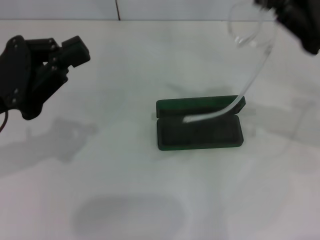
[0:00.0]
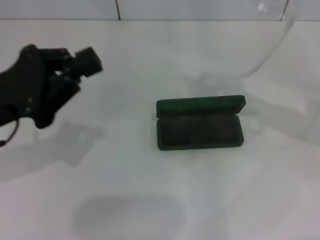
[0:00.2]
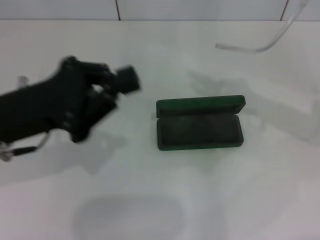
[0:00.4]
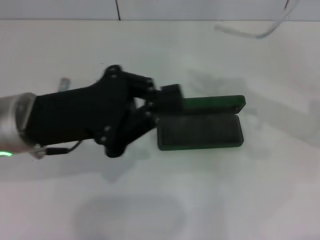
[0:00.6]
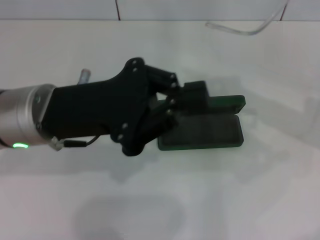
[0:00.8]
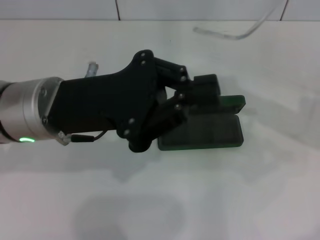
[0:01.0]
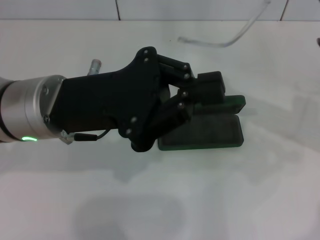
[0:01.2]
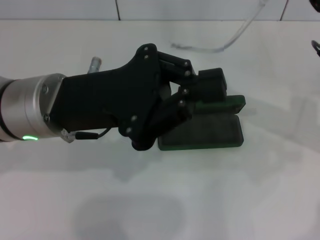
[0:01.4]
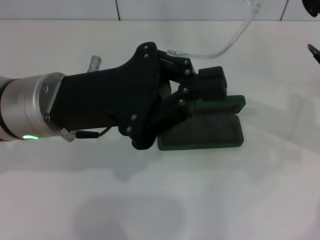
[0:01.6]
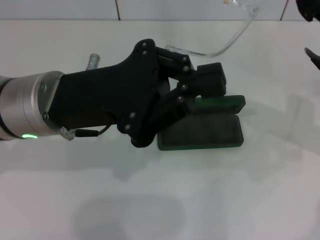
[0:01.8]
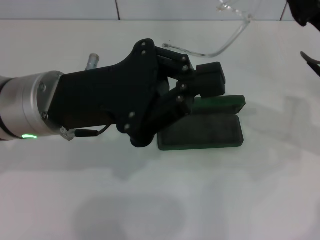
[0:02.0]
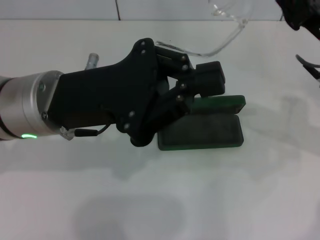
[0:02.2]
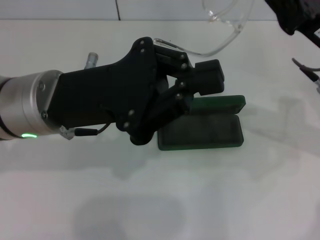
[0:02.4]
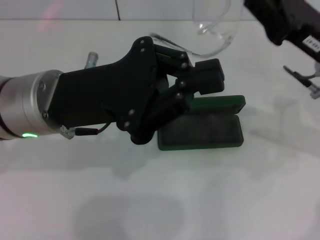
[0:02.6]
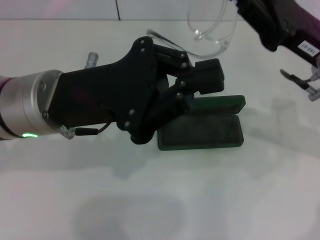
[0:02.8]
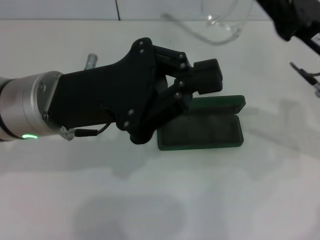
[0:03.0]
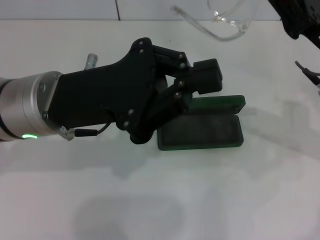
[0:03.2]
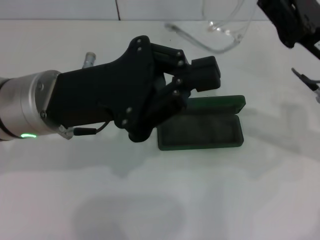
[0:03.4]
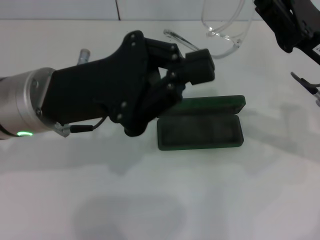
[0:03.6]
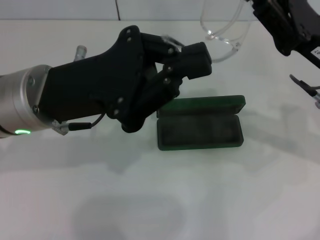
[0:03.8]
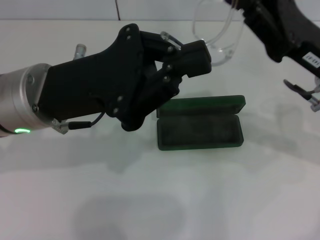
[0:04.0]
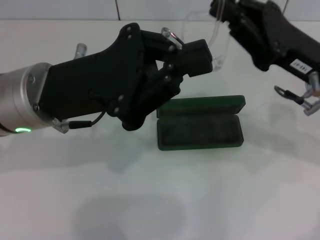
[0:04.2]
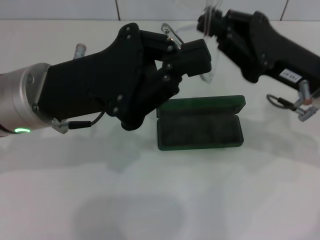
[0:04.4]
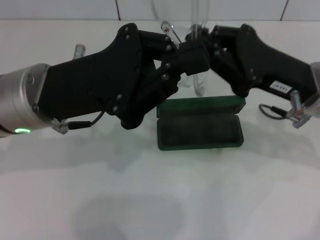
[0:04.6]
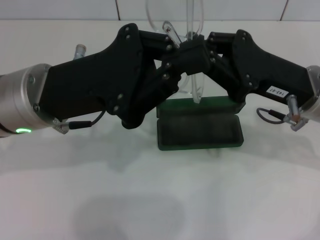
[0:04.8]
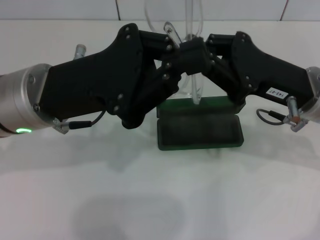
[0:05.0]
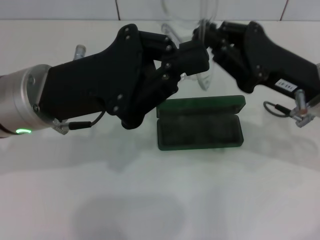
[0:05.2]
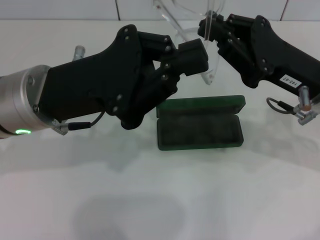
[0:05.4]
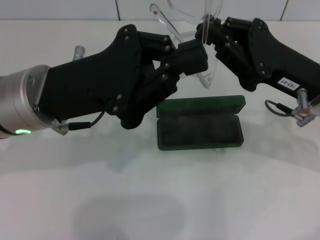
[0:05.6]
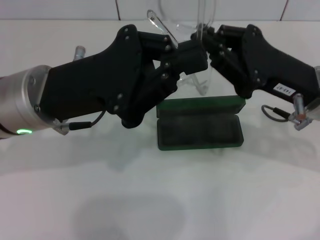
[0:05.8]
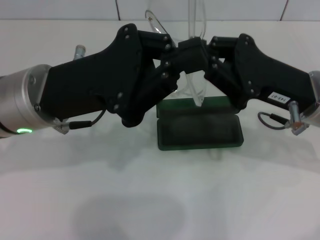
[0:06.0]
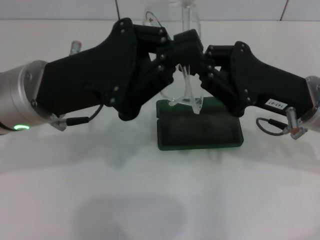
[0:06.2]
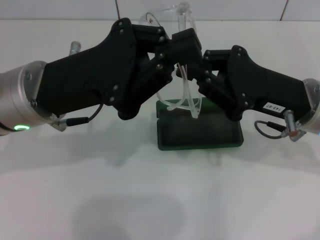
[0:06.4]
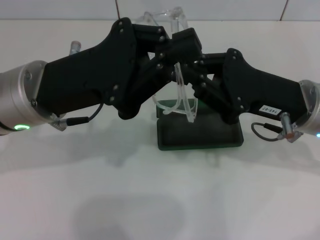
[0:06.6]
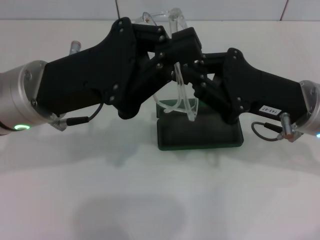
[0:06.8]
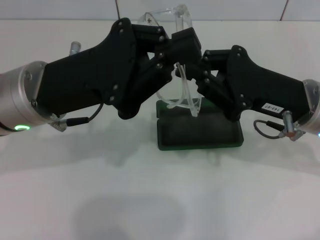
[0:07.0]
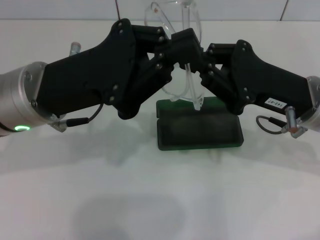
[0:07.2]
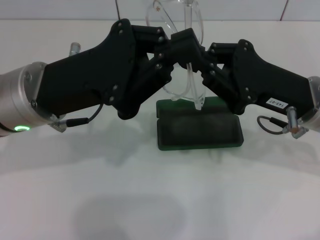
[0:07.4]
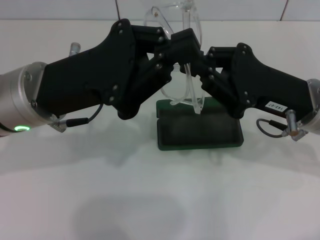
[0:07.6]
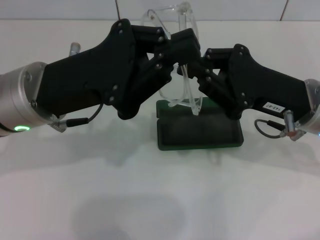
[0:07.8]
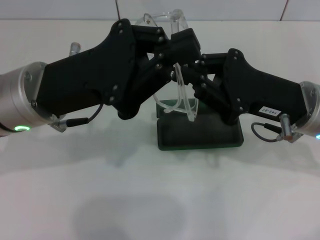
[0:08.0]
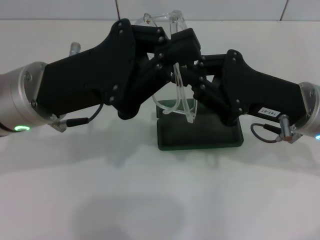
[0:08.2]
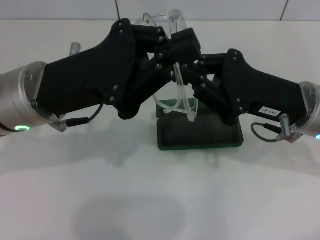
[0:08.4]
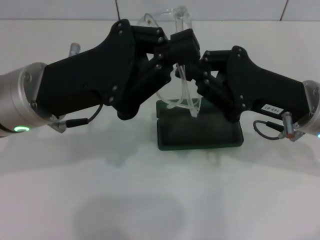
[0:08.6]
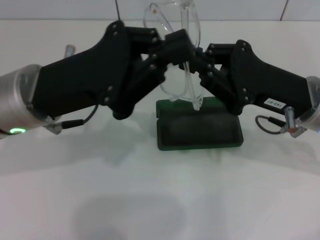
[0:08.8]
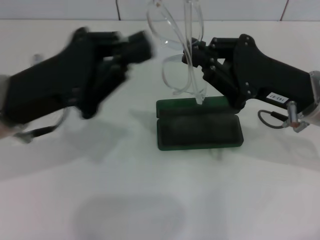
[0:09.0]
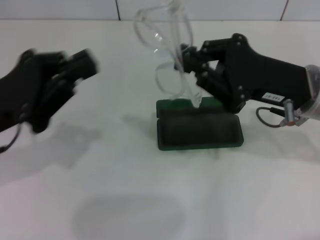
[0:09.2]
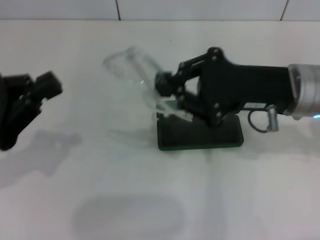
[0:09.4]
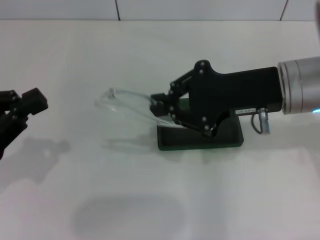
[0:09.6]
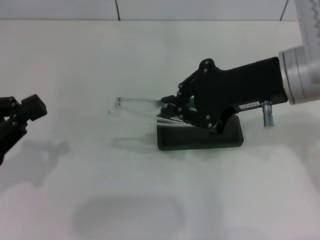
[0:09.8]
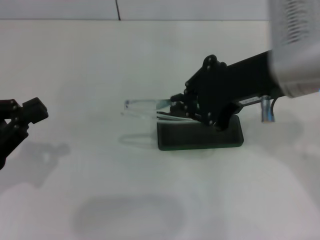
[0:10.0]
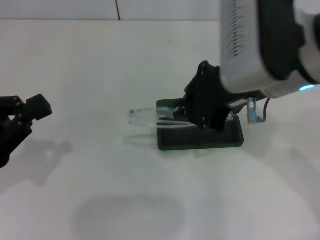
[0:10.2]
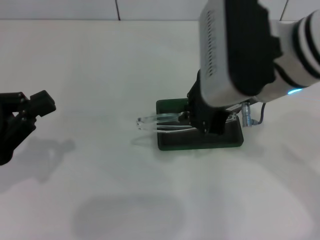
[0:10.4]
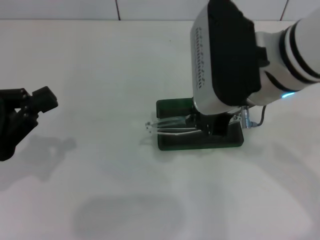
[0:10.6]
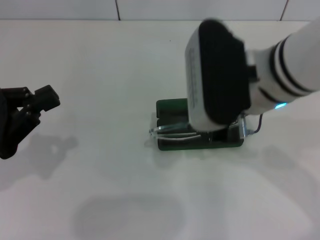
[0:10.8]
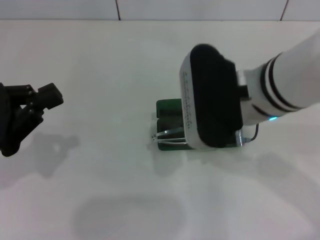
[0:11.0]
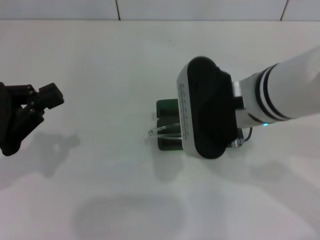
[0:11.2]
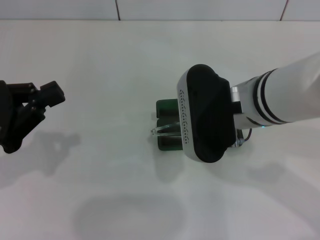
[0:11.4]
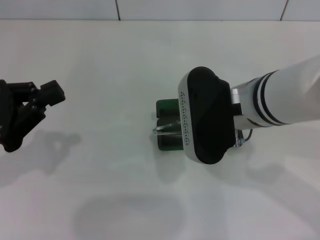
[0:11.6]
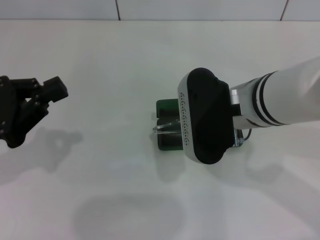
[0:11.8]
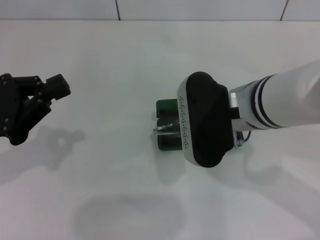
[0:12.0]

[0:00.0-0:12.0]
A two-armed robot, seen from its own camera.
Step, 0:00.0 to 0:08.6: Fold the frame with your left hand.
0:00.0 to 0:01.6: The left gripper goes approximately 10 cm to the right.
0:01.6 to 0:03.0: The grippers stay close to where they were, moving slightly.
0:04.4 to 0:06.0: The grippers stay close to where they were, moving slightly.
0:06.0 to 0:07.6: The two grippers keep their place.
0:07.6 to 0:09.0: The grippers stay close to where they were, moving slightly.
0:09.0 to 0:10.4: The right gripper shifts about 15 cm upward and to the left. The left gripper is displaced to the left by some 10 cm.
0:10.4 to 0:12.0: The right gripper is displaced downward by approximately 10 cm.

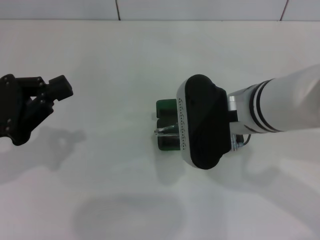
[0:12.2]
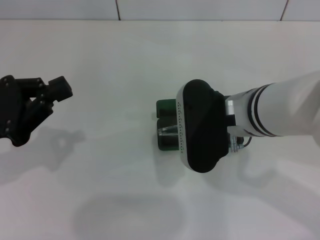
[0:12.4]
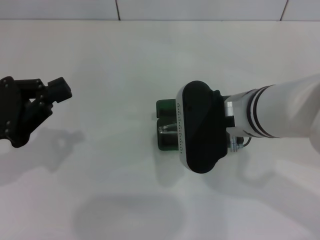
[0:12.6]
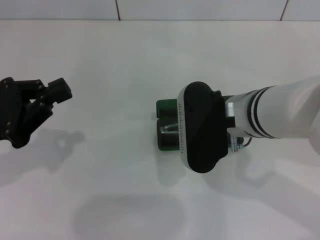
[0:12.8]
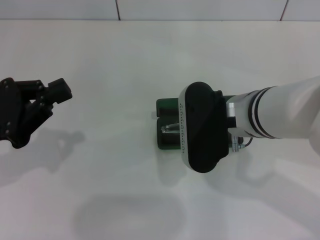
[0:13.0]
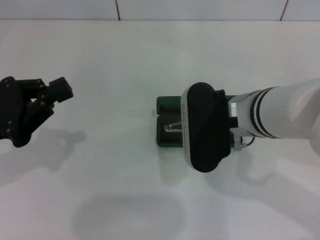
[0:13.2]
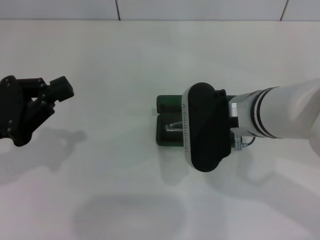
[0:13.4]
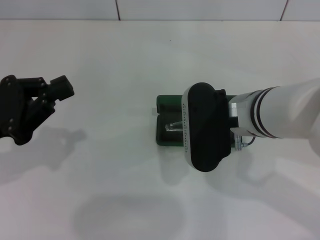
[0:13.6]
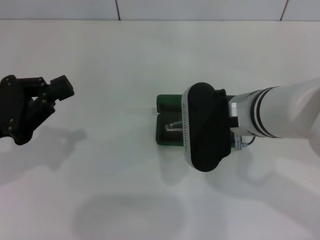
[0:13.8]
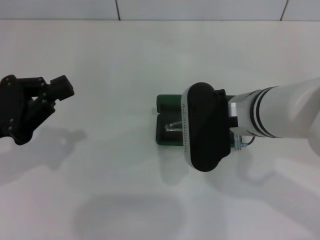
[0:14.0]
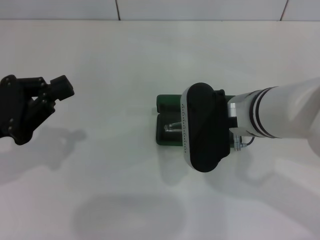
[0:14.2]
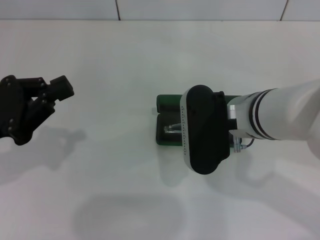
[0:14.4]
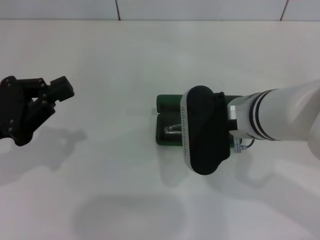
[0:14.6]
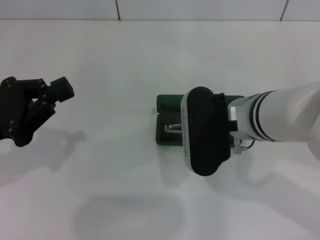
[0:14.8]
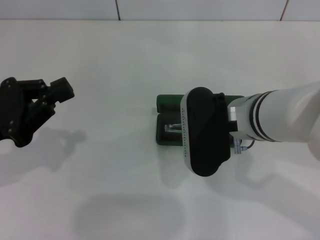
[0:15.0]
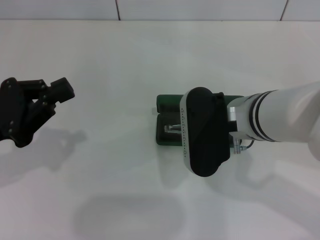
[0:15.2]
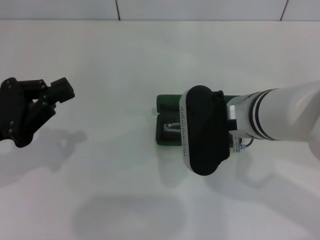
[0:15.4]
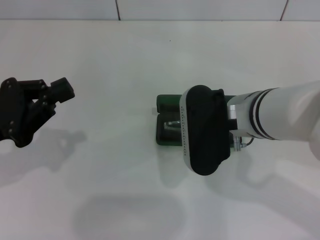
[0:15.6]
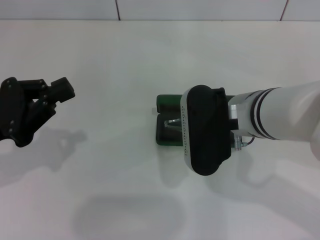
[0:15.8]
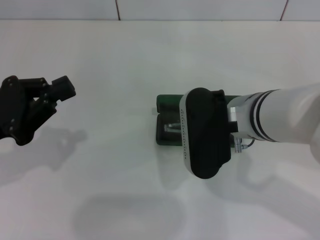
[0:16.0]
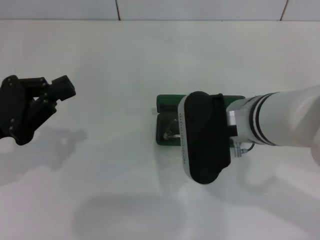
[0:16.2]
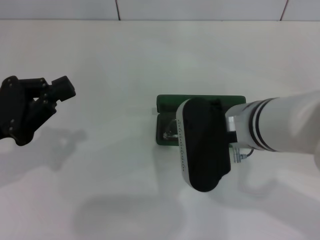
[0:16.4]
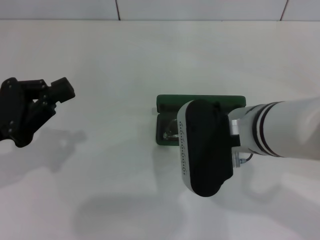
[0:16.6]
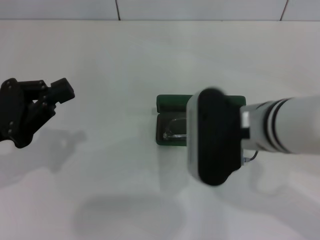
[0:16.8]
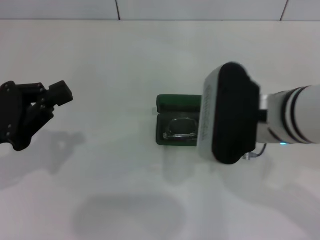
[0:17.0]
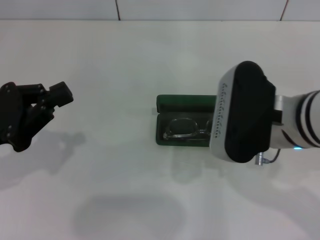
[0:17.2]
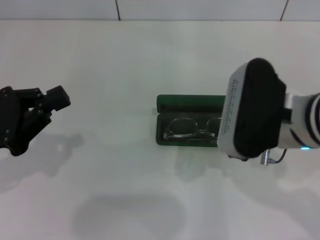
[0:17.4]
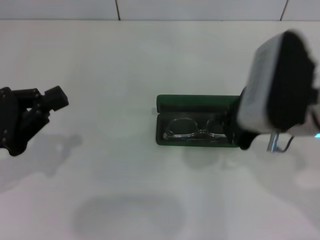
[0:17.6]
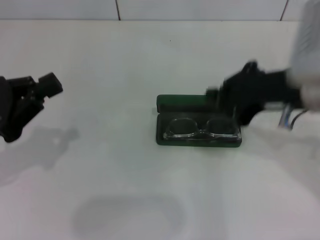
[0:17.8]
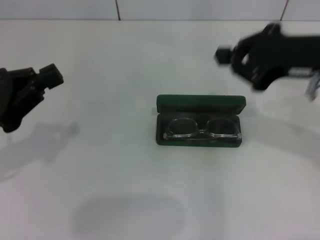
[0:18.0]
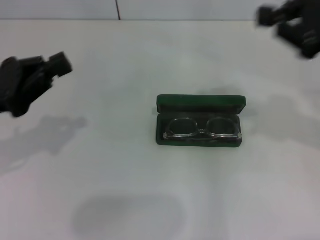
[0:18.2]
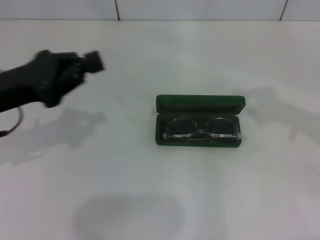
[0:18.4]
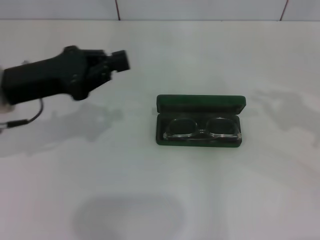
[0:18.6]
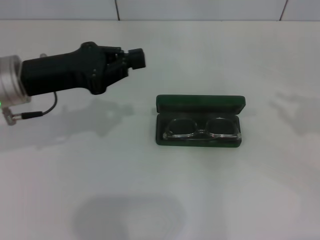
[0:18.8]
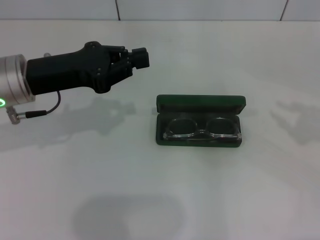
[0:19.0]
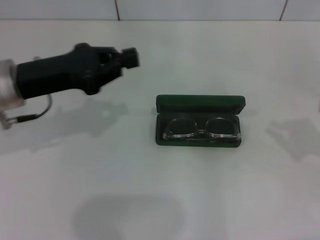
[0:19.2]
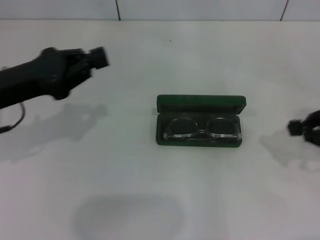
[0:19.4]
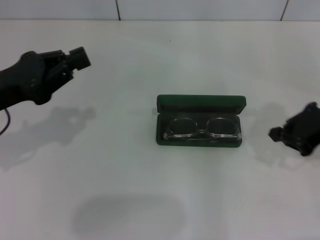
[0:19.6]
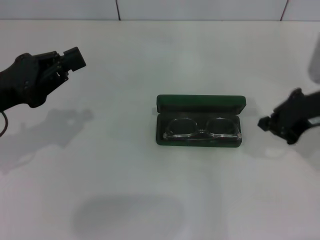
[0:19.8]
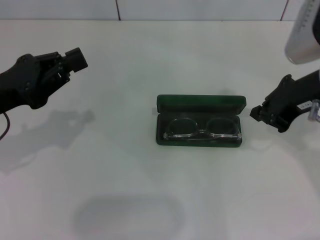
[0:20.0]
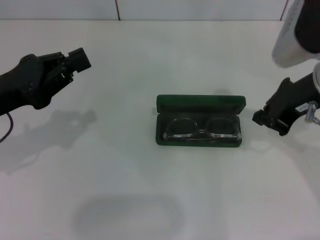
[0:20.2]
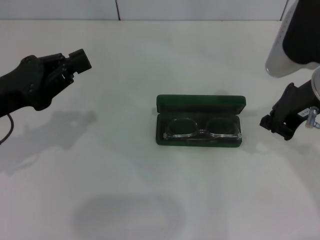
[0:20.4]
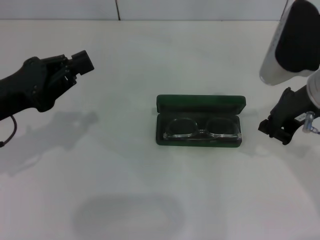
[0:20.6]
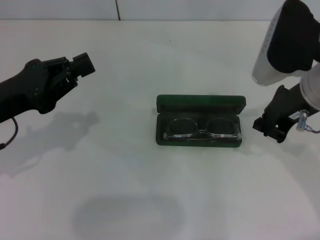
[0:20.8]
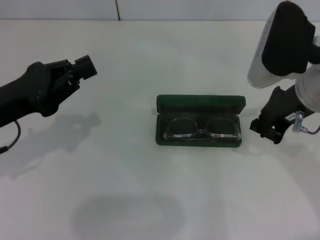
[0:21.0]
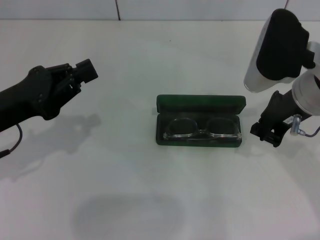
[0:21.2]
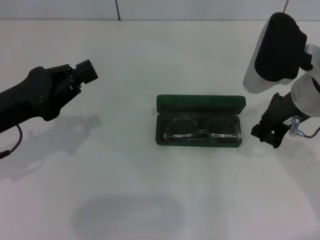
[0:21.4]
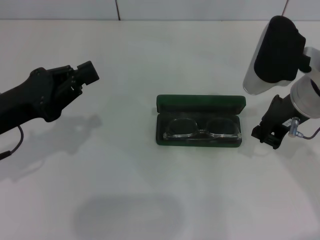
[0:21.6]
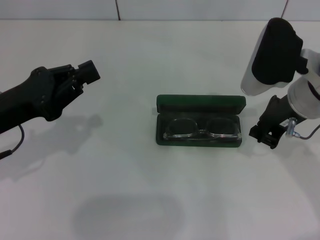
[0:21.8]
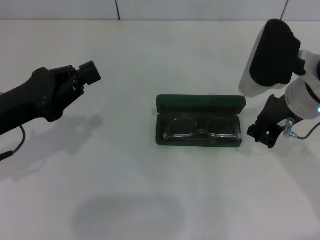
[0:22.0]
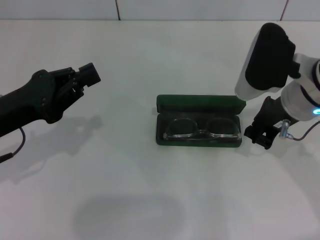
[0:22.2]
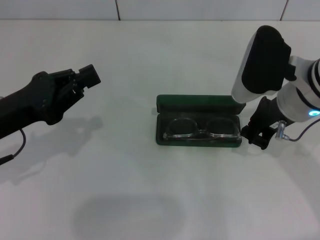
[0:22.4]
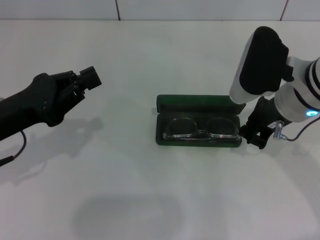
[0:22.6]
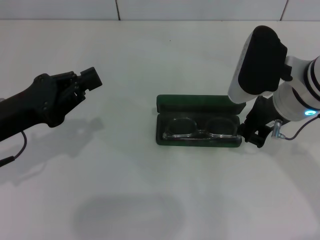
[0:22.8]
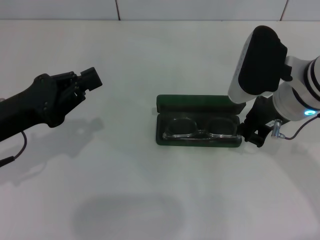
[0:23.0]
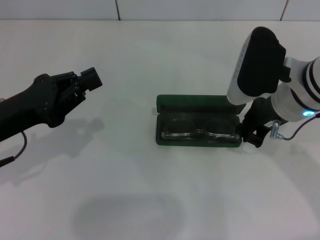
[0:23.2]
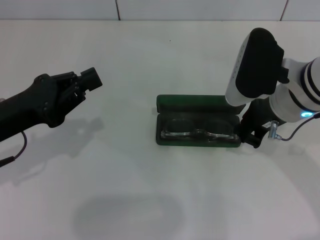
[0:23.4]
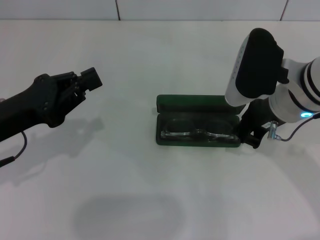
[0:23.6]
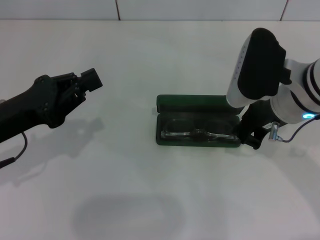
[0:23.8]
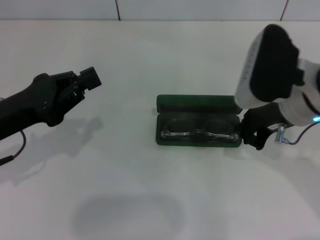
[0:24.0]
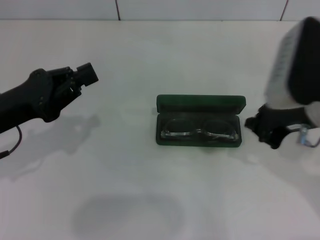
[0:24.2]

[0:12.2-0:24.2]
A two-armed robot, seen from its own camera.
Step, 0:12.2 to 0:16.8: Put the glasses into the case with your right hand.
0:12.2 to 0:13.8: The grippers move only a little.
0:13.8 to 0:15.2: The two grippers keep their place.
0:15.2 to 0:16.6: The grippers stay close to where they were, moving slightly.
0:16.6 to 0:18.2: The right gripper travels to the right and upward by roughly 20 cm.
0:18.2 to 0:19.8: The right gripper is displaced downward by roughly 5 cm, and goes to the right and returns, approximately 10 cm each way.
0:19.8 to 0:21.2: The right gripper travels to the left by about 5 cm.
0:21.2 to 0:22.6: The grippers stay close to where they were, moving slightly.
0:22.6 to 0:24.2: The right gripper shifts by roughly 5 cm.
